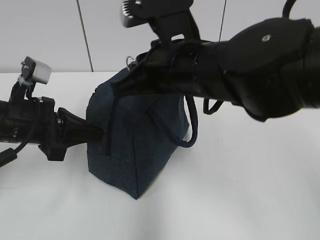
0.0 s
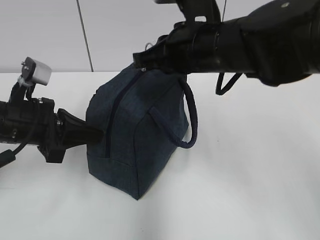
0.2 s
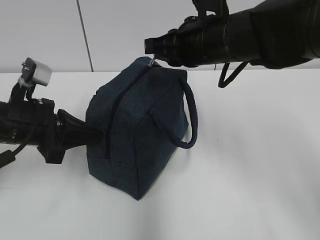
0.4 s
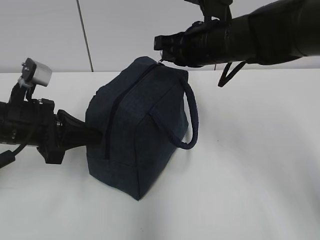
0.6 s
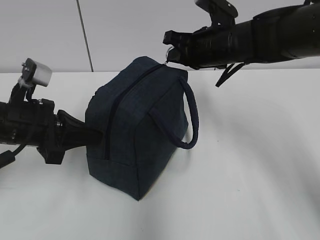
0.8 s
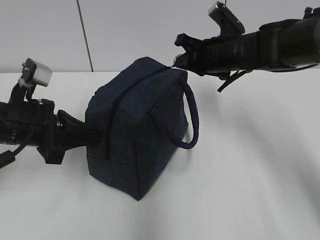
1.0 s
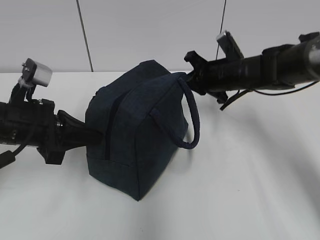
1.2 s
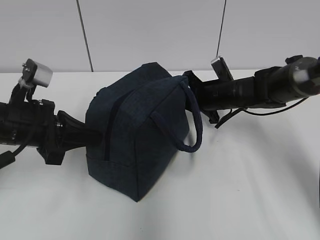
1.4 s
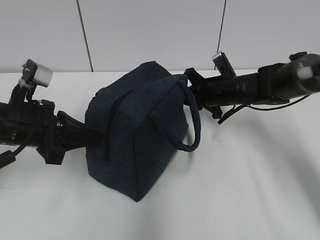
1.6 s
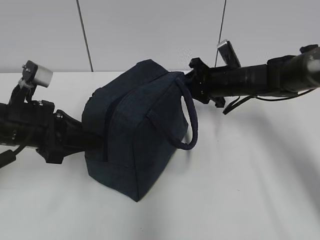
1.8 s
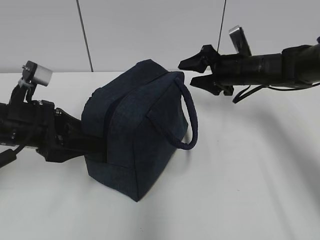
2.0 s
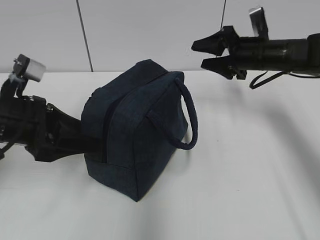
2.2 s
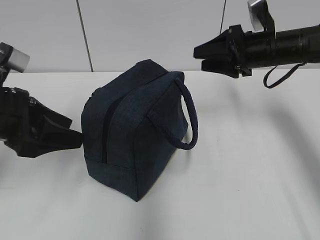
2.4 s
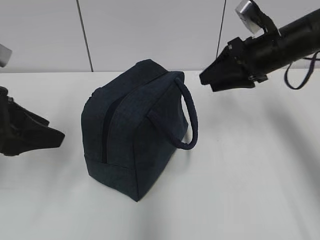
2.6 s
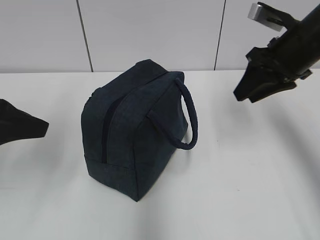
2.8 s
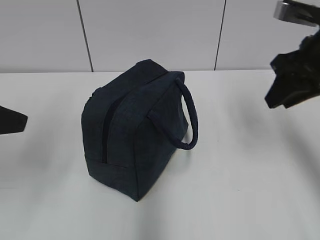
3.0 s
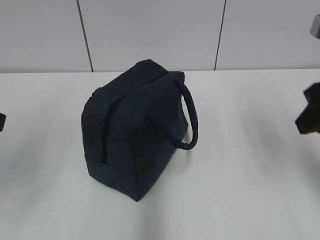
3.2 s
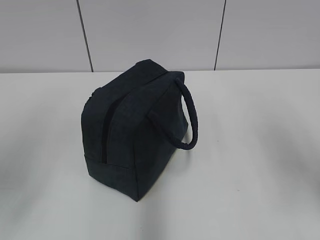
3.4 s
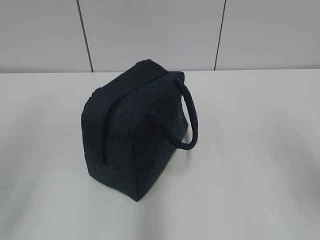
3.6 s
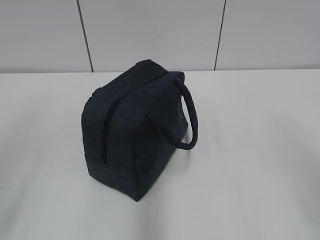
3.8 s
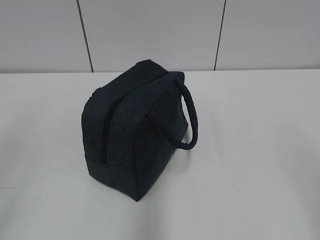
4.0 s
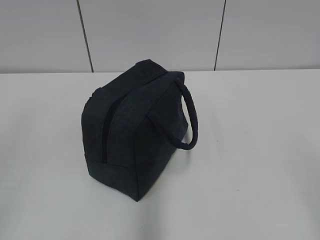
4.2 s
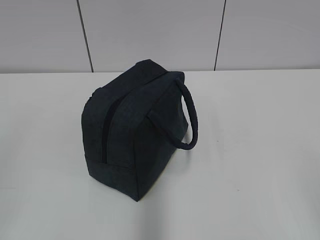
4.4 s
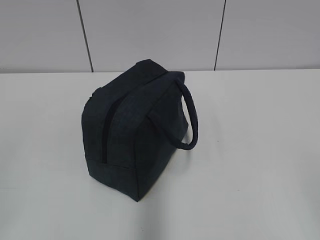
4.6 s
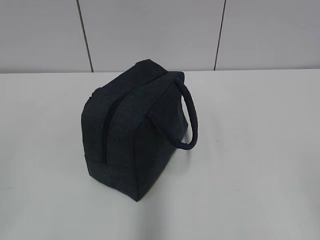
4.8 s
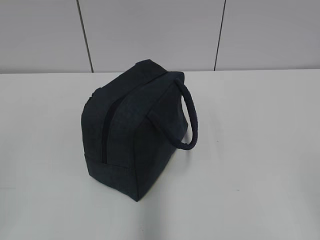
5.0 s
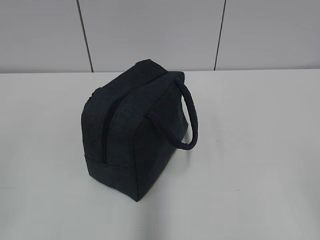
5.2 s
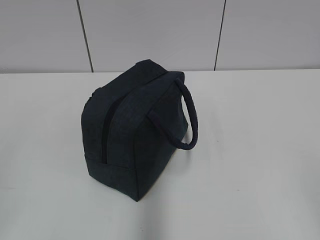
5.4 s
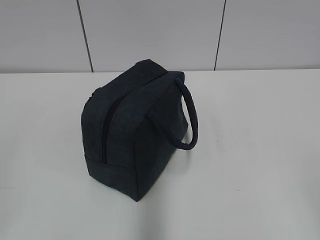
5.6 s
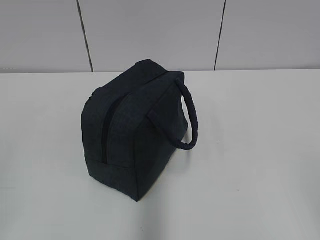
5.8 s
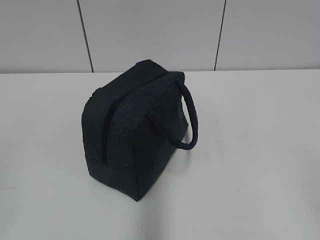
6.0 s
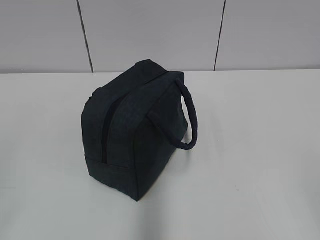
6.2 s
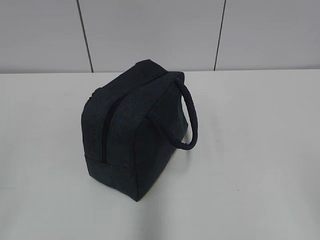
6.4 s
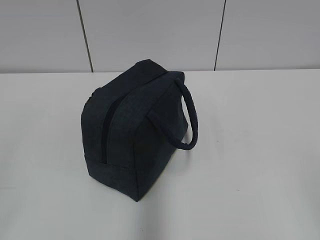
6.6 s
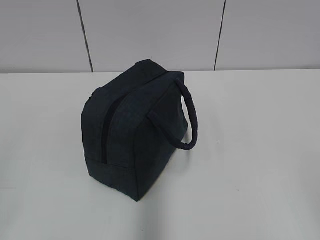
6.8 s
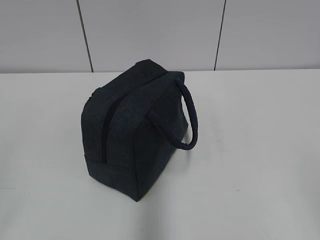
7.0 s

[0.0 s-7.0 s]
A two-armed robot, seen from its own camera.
0.0 to 1.4 s: The right gripper shifts roughly 25 cm forward, downward and to the right.
1.4 to 2.8 s: The right gripper heads upward, backward and to the right, covering approximately 20 cm, and opens. The left gripper goes roughly 10 cm upward and backward, and opens its fingers.
2.8 to 4.2 s: The left gripper travels backward by about 20 cm. Meanwhile the right gripper goes some 35 cm backward.
